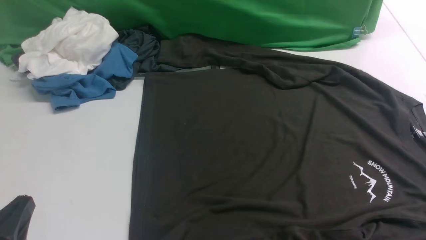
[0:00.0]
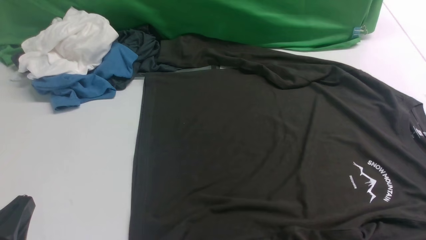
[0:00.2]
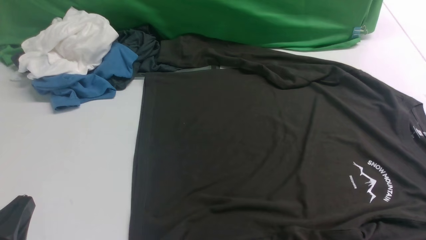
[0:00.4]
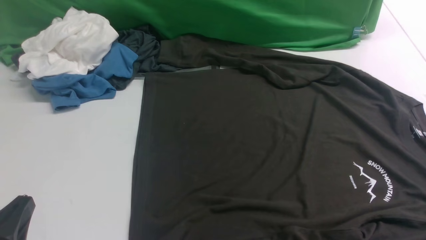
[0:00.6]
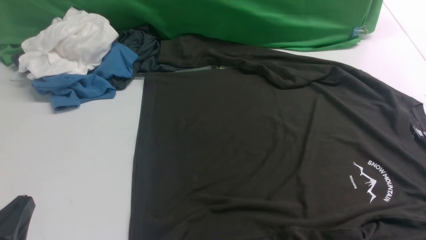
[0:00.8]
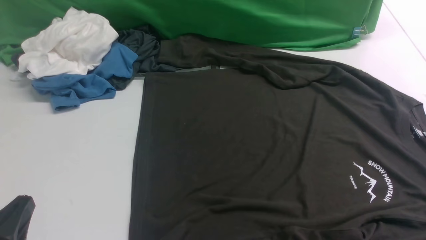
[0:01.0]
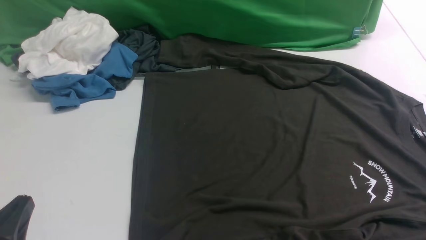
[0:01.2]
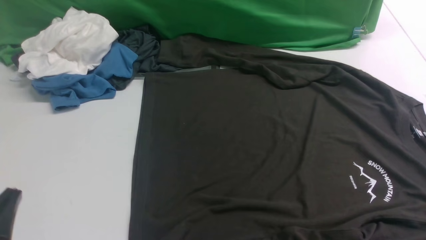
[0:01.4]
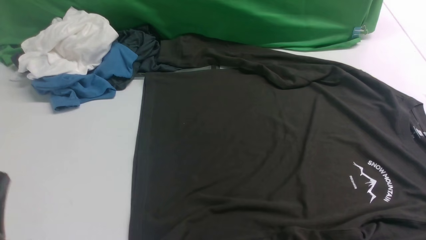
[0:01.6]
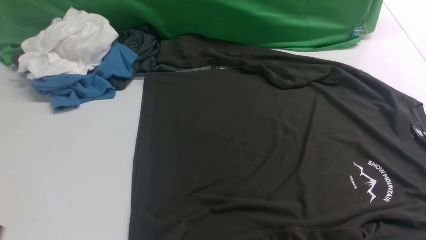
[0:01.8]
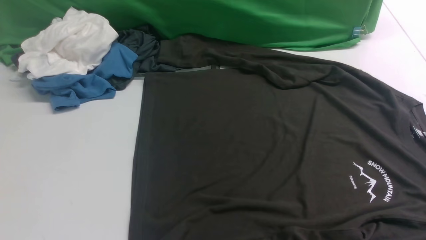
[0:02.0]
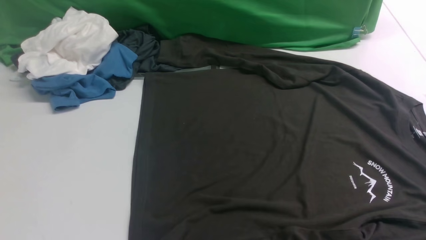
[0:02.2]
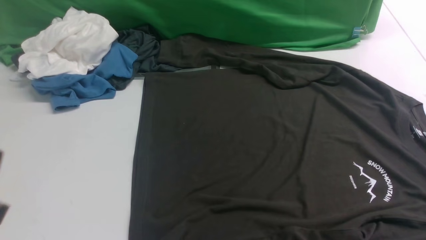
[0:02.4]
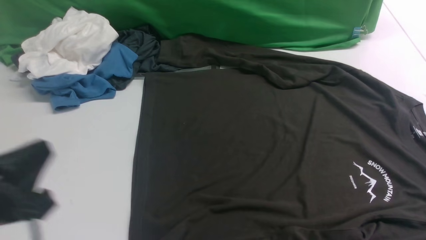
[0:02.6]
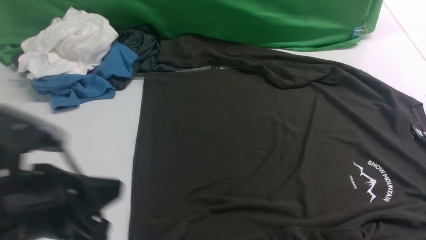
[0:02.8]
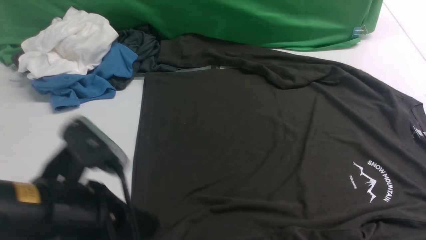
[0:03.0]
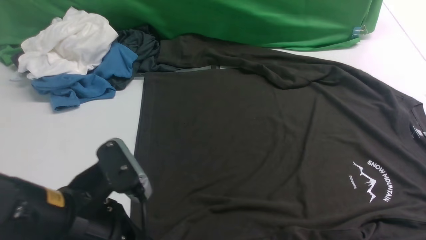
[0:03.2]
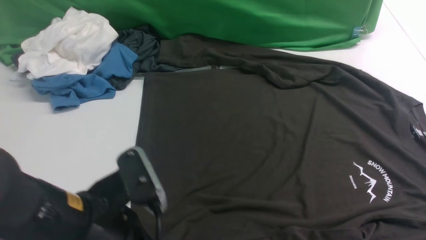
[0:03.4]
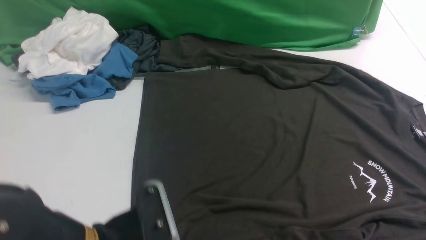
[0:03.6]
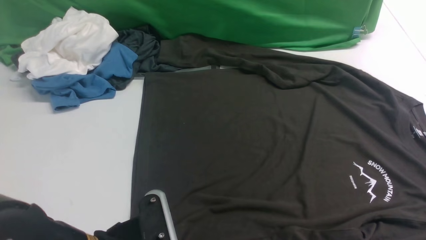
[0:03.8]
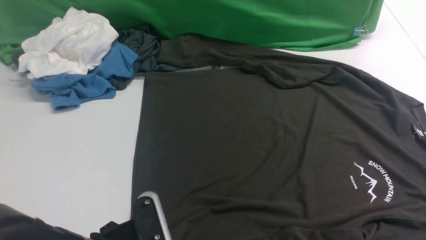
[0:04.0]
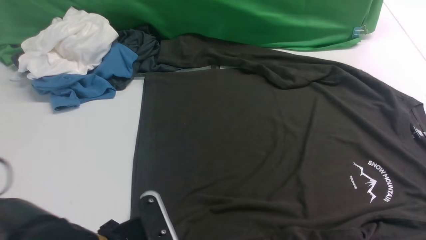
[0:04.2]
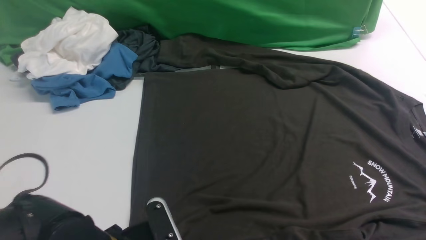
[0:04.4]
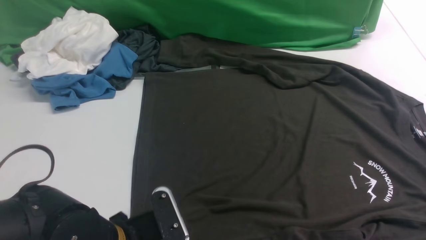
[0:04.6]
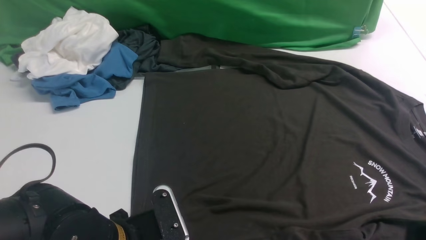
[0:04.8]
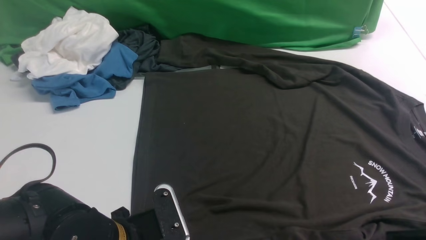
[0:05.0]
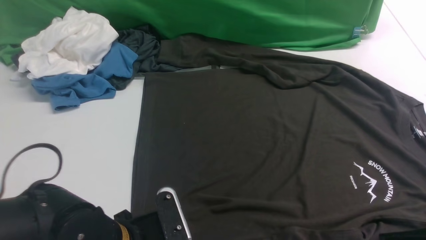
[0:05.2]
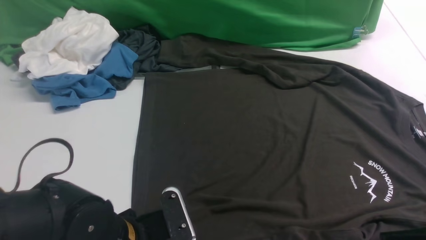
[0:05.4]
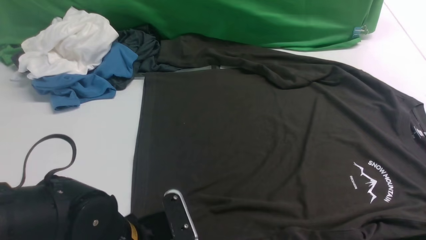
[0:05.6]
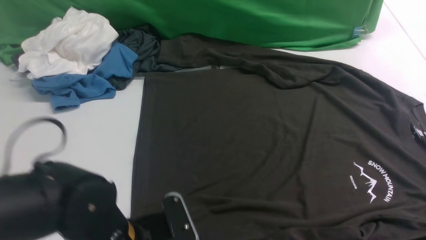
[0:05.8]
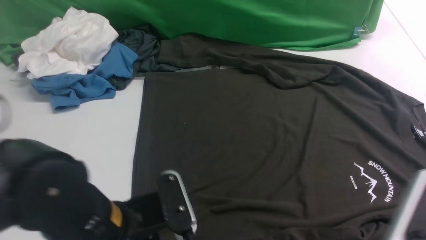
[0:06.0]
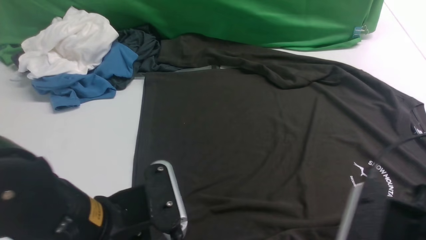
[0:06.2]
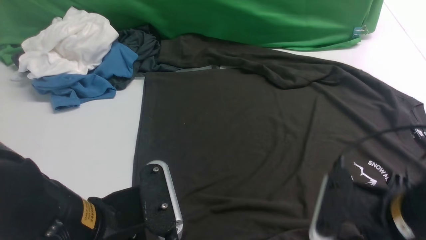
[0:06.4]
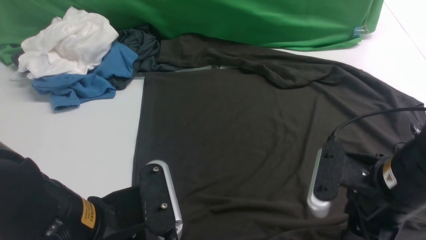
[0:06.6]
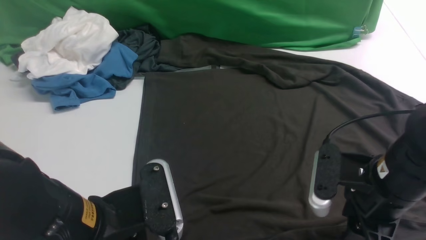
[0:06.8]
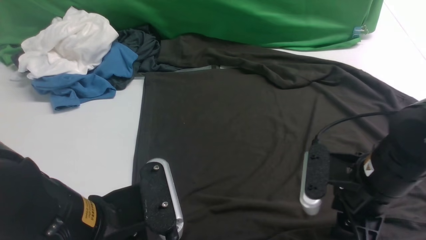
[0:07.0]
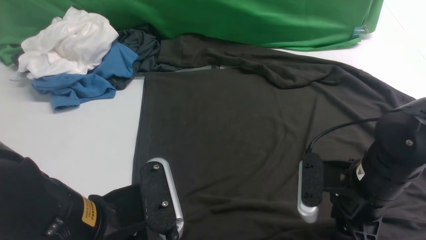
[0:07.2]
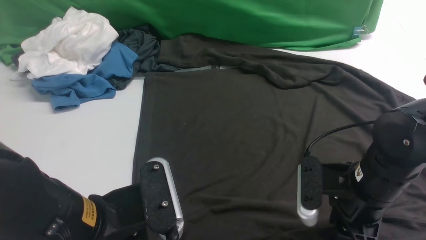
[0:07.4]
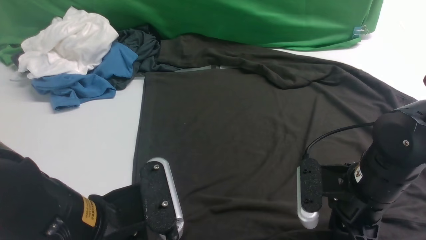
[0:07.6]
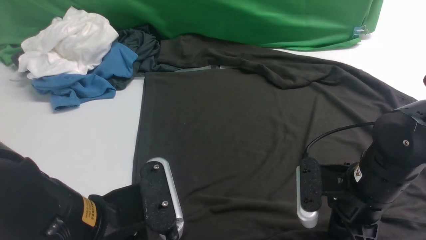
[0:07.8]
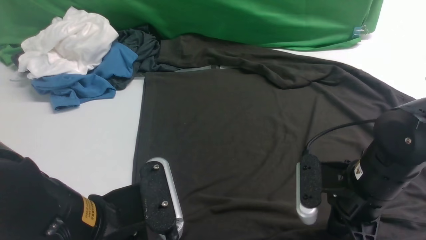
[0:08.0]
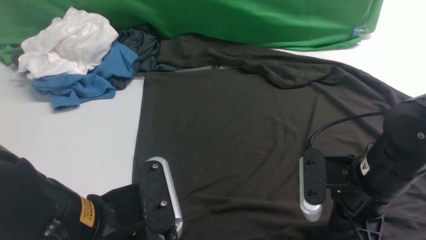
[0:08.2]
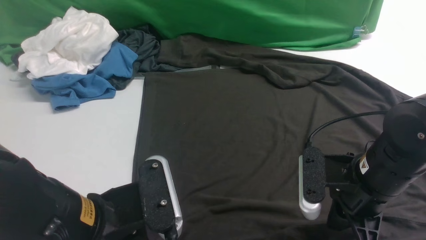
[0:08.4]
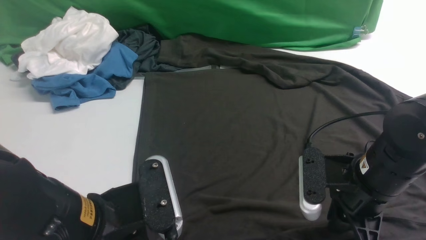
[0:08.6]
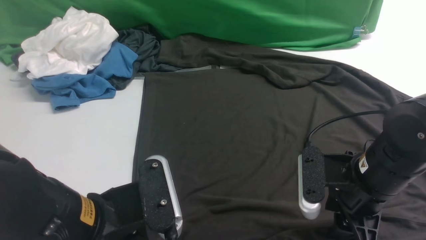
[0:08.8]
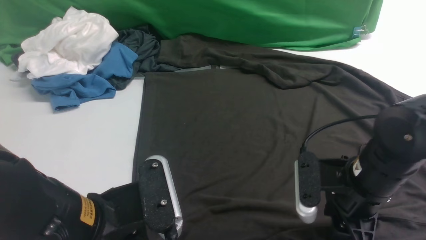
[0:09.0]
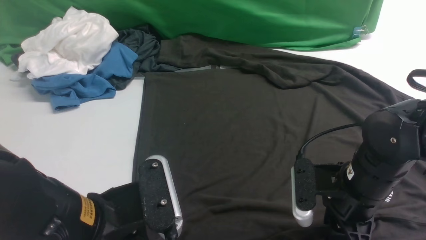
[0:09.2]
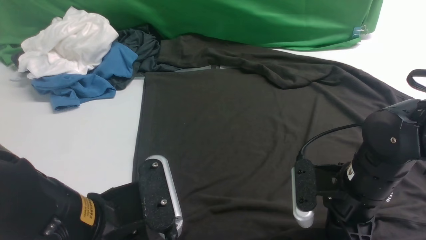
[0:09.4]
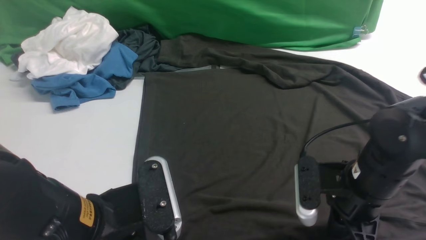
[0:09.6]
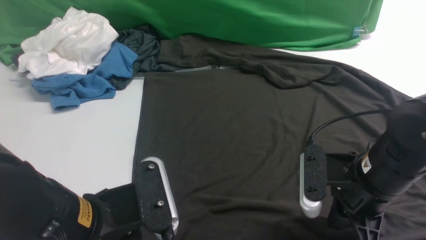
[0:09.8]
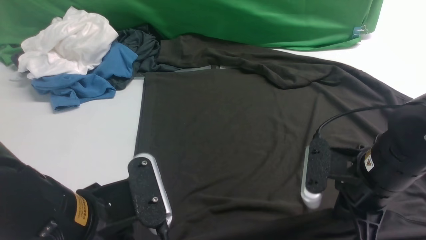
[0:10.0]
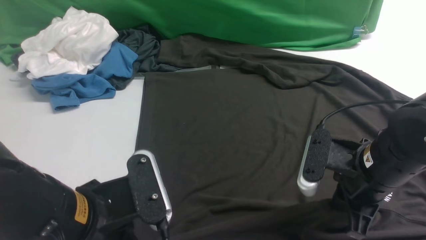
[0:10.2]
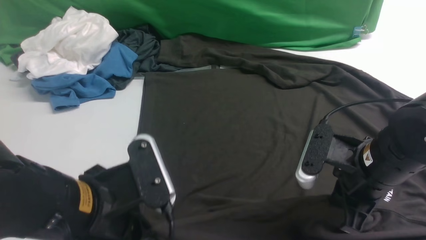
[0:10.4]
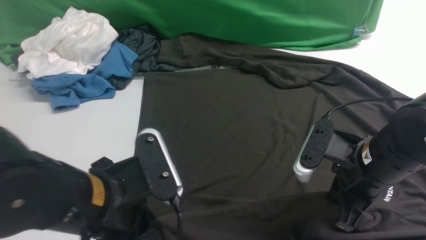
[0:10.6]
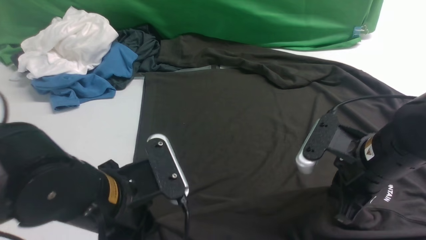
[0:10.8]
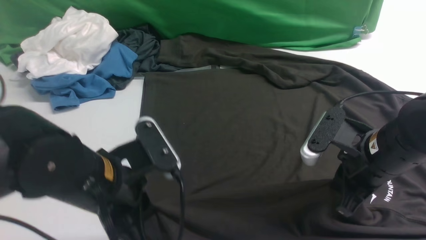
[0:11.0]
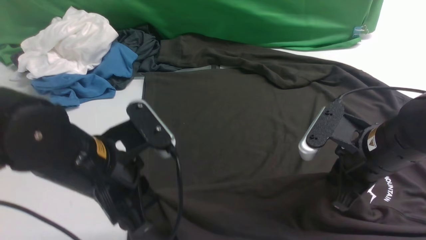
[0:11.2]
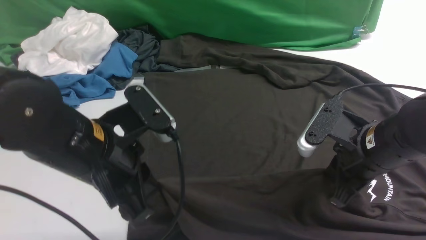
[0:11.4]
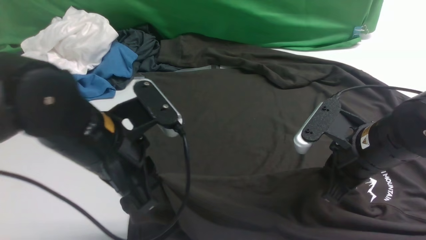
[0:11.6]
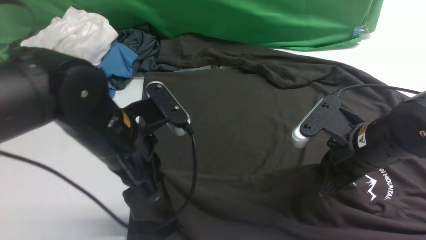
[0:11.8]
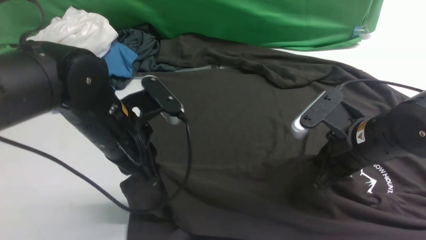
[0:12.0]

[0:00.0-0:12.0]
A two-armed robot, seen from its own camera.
Step, 0:00.0 to 0:10.4: use the left arm to clamp the cuff closest to it.
0:00.0 to 0:01.6: The grippers make only small movements.
0:01.6 to 0:03.0: The left gripper is displaced to the right, forward and upward by roughly 15 cm.
0:03.0 to 0:04.4: The left gripper moves downward, roughly 10 cm, and opens.
0:04.4 to 0:06.0: The left gripper travels upward by approximately 5 cm, and closes, while the right gripper goes approximately 10 cm to the left and forward.
0:06.0 to 0:07.6: The right gripper moves forward and downward, about 15 cm.
0:07.6 to 0:09.0: There are only small adjustments of the grippers.
0:09.0 to 0:10.4: The right gripper closes its fingers.
0:10.4 to 0:12.0: The left gripper goes some 10 cm forward.

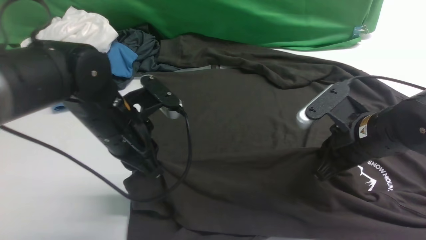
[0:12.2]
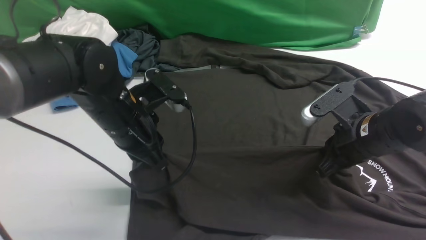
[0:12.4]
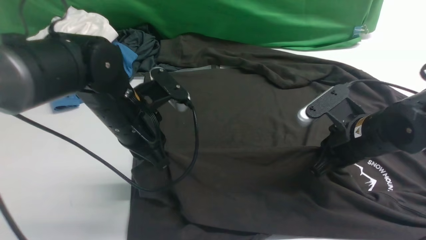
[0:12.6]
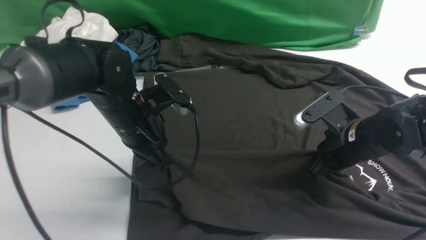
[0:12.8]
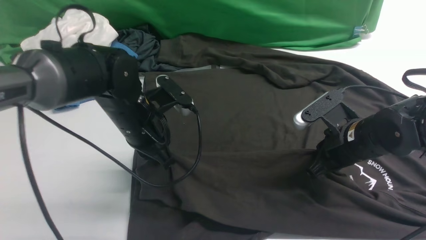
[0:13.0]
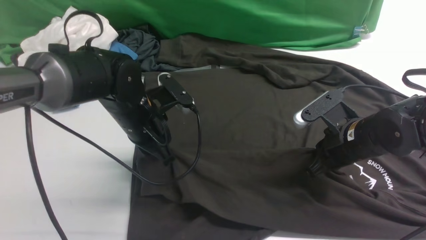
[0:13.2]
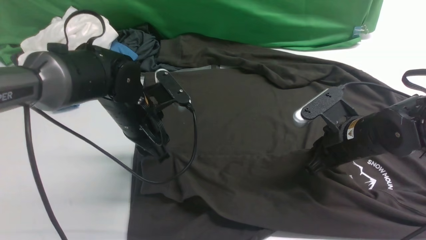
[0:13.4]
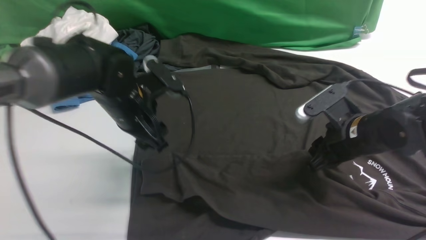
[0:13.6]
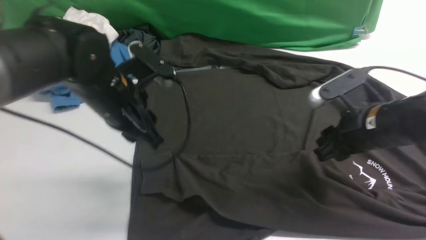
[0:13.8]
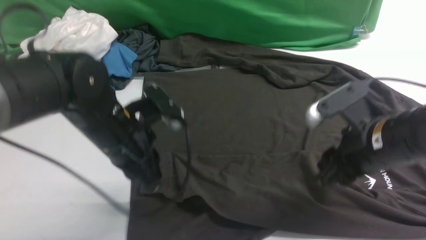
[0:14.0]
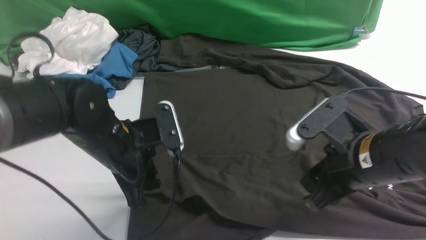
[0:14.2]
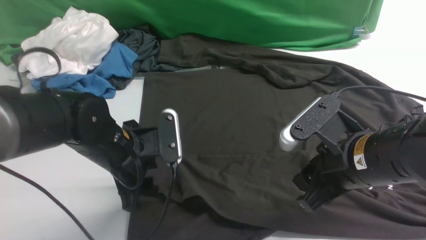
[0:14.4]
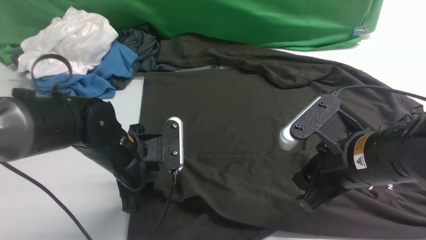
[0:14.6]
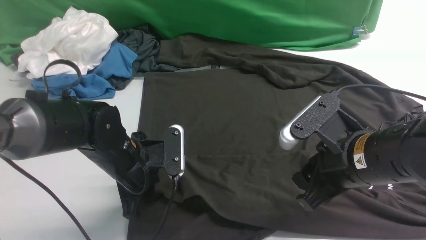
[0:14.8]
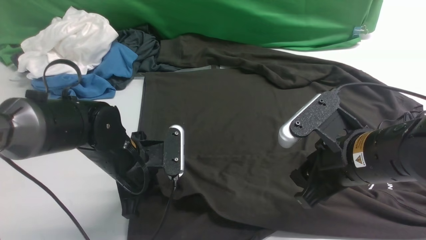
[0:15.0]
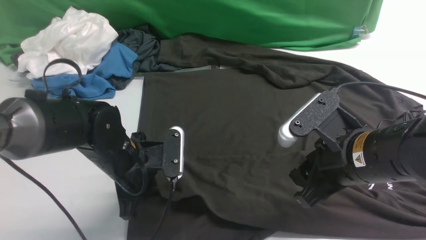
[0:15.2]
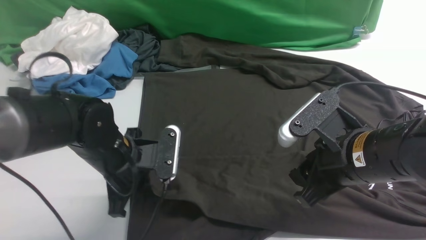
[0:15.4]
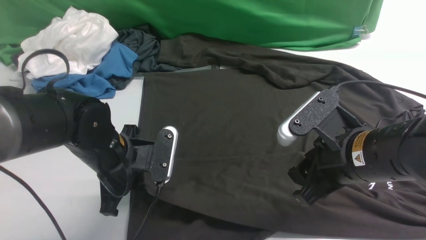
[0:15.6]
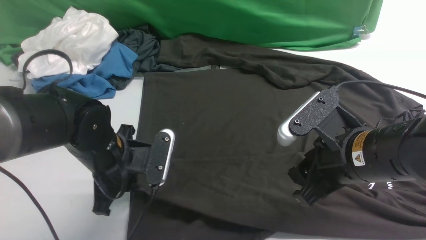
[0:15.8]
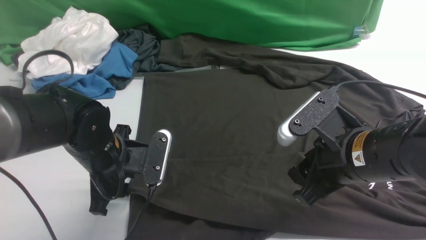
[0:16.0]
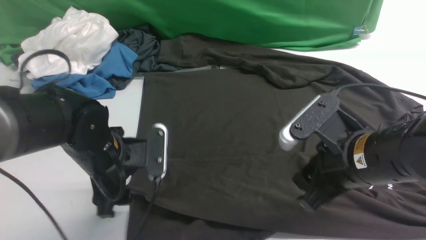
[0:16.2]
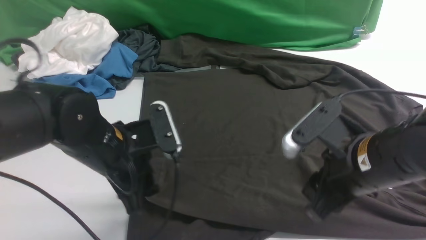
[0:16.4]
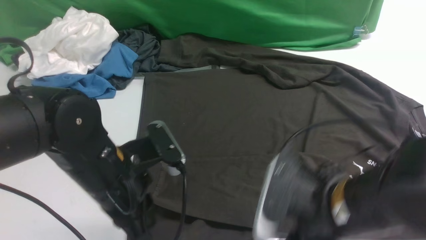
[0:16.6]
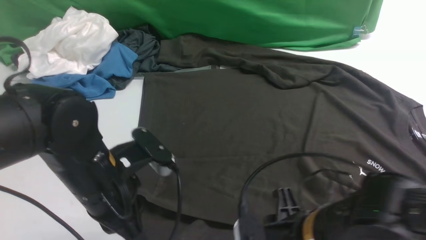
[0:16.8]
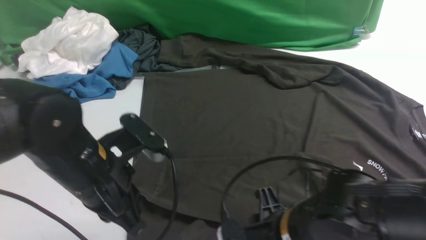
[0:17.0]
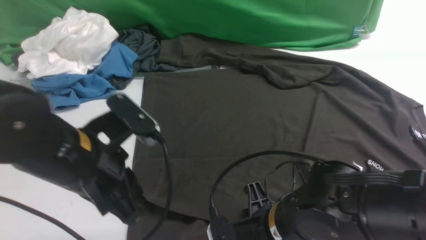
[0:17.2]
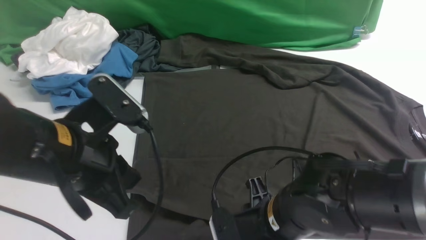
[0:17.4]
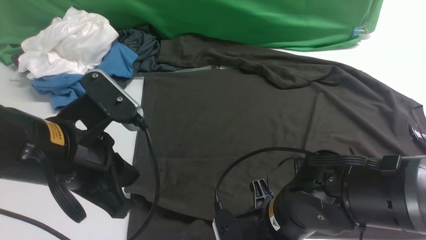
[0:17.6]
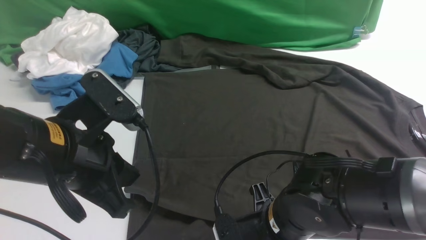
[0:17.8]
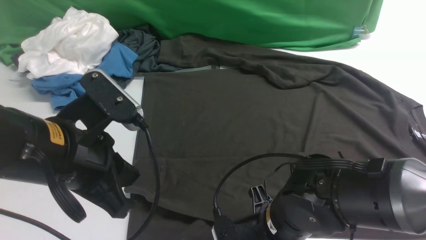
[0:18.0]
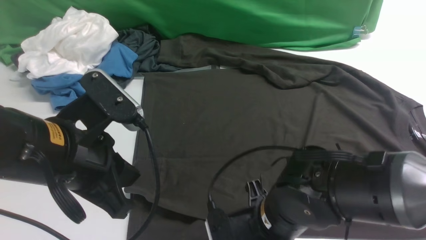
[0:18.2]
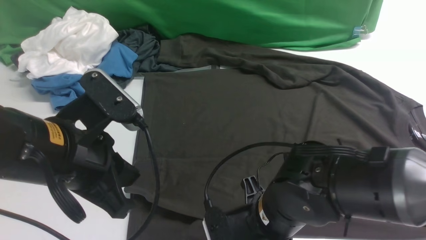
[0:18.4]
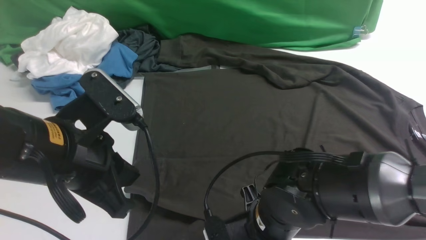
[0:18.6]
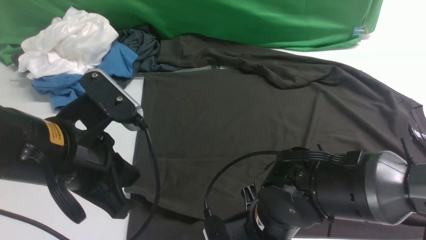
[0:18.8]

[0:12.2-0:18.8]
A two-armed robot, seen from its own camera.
0:12.2 to 0:13.8: The left gripper opens its fingers. The right gripper opens its fingers.
0:13.8 to 0:15.4: The right gripper travels backward by some 5 cm. Meanwhile the left gripper moves downward, about 5 cm, and closes.
0:15.4 to 0:17.2: The right gripper shifts roughly 10 cm to the left and downward. The left gripper goes some 10 cm upward and backward, and opens and closes again.
0:17.2 to 0:18.8: The right gripper closes up.
